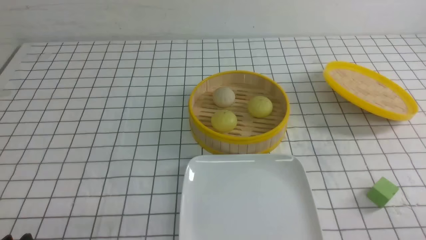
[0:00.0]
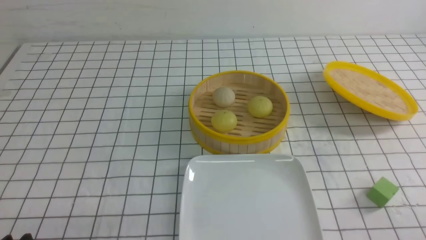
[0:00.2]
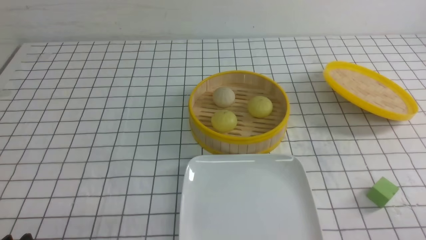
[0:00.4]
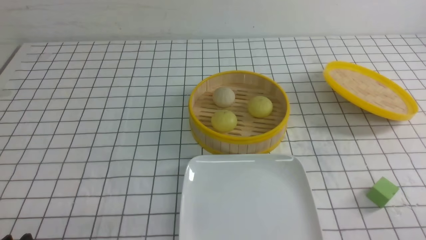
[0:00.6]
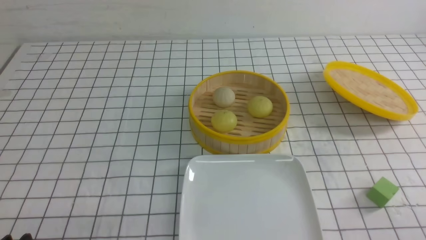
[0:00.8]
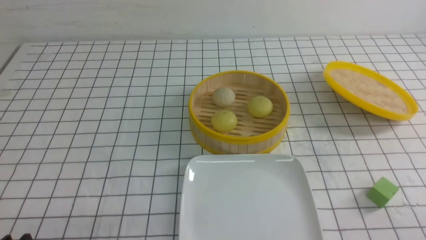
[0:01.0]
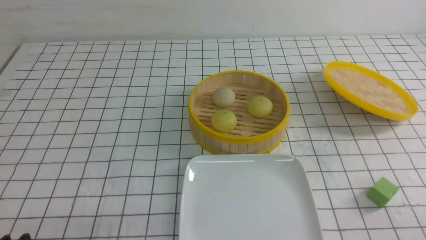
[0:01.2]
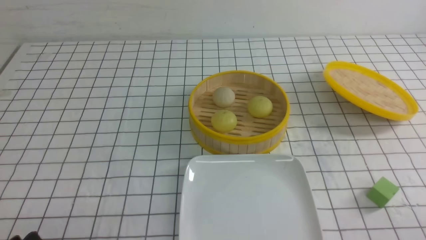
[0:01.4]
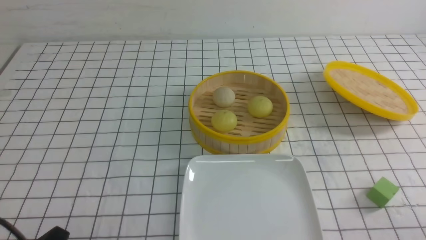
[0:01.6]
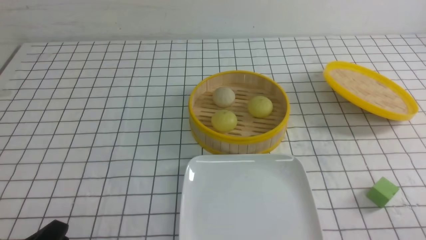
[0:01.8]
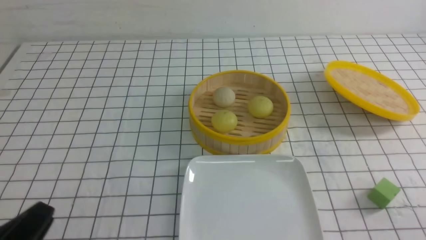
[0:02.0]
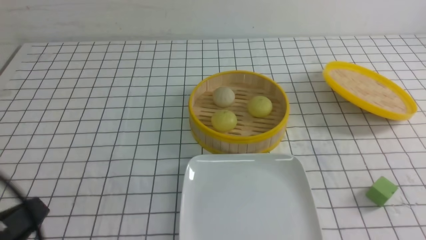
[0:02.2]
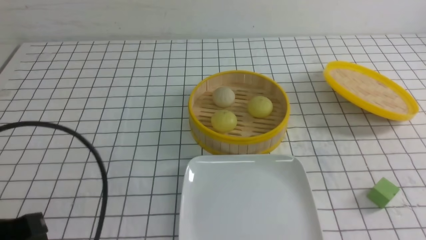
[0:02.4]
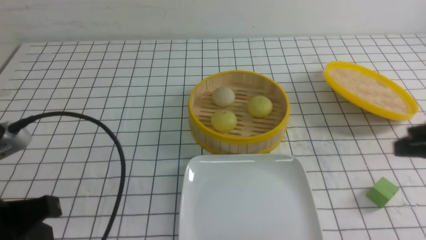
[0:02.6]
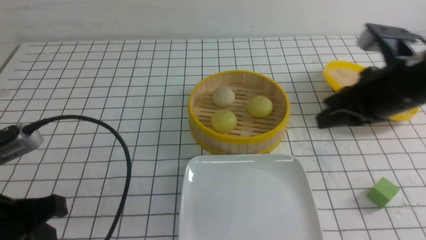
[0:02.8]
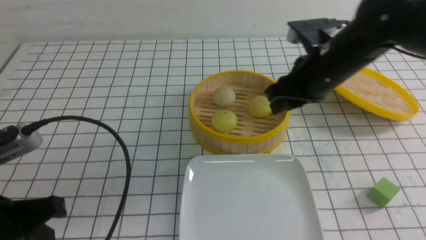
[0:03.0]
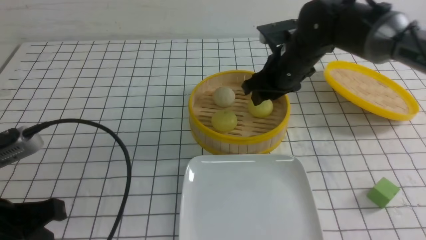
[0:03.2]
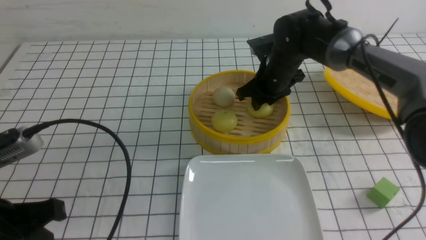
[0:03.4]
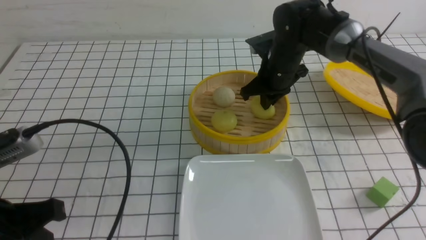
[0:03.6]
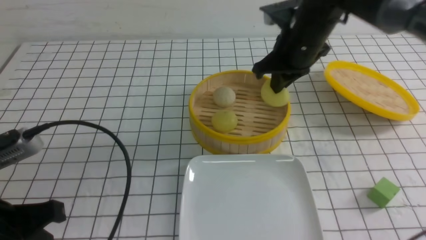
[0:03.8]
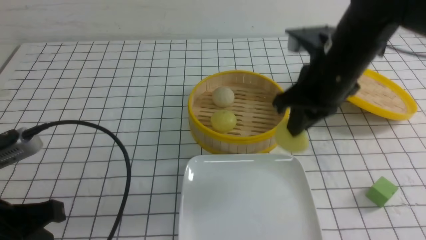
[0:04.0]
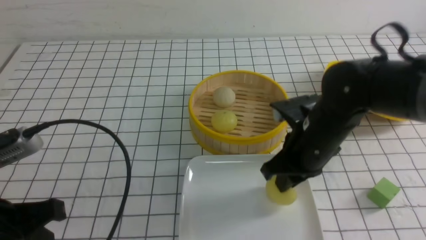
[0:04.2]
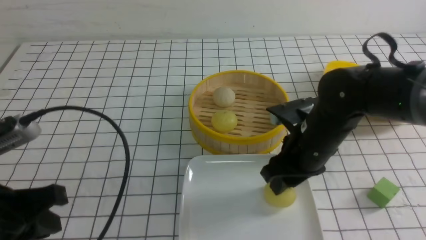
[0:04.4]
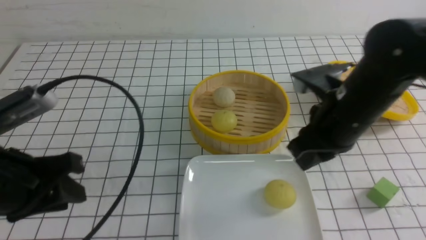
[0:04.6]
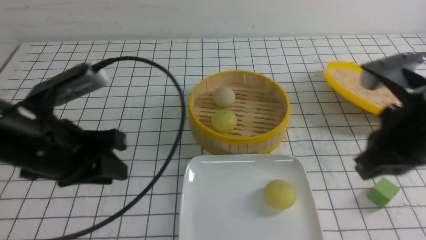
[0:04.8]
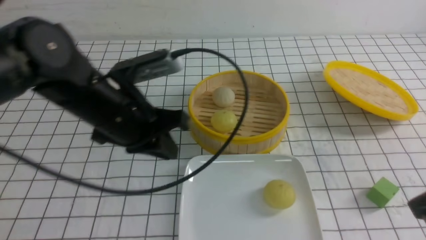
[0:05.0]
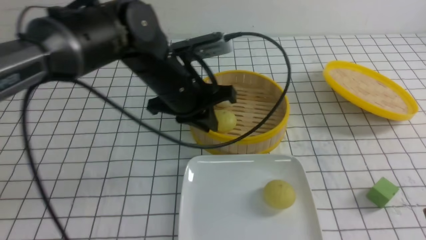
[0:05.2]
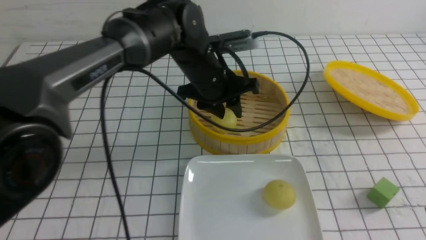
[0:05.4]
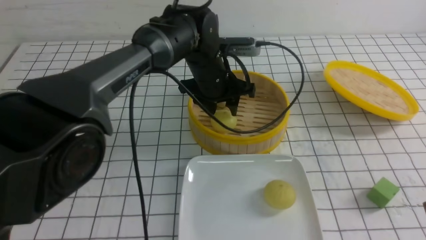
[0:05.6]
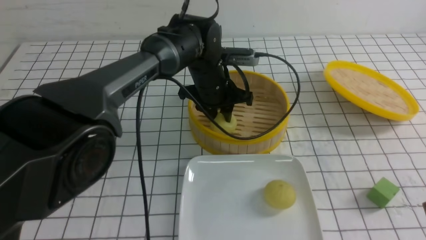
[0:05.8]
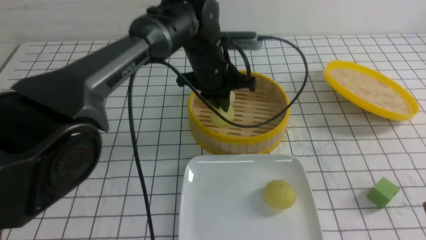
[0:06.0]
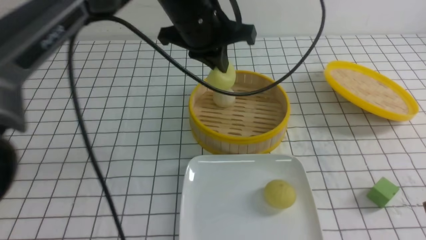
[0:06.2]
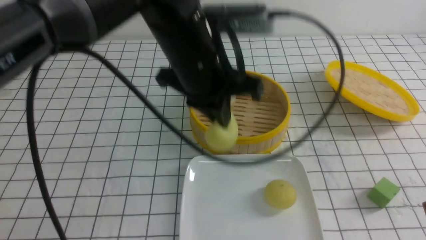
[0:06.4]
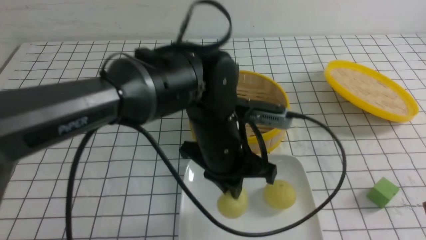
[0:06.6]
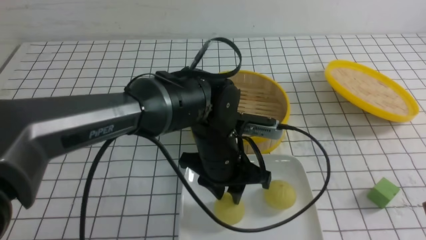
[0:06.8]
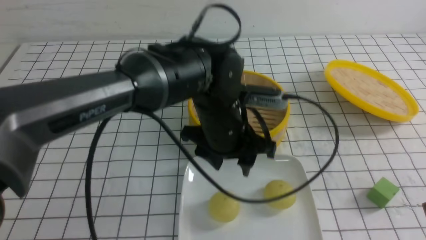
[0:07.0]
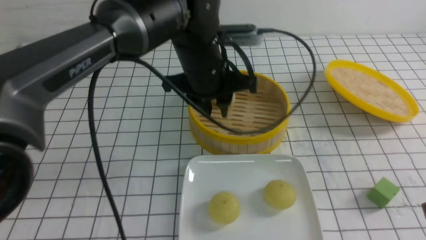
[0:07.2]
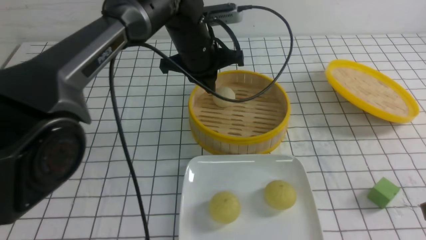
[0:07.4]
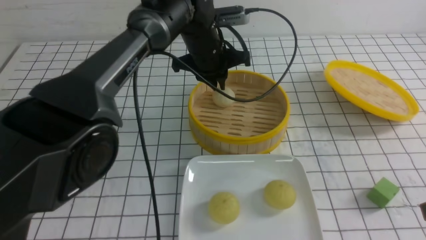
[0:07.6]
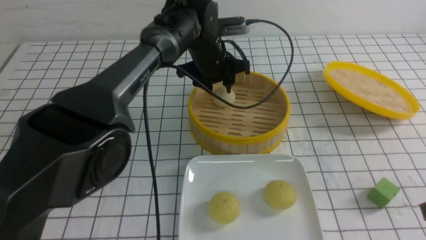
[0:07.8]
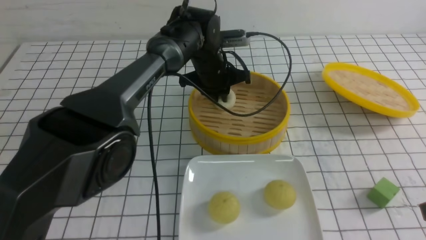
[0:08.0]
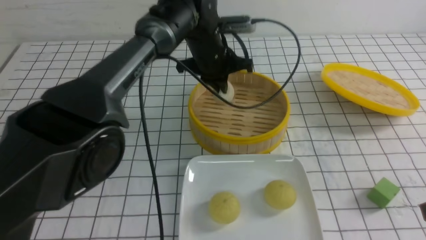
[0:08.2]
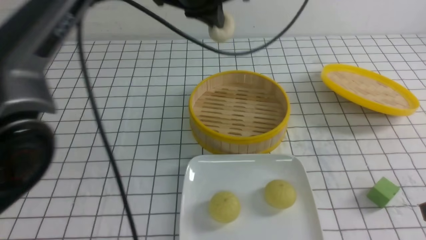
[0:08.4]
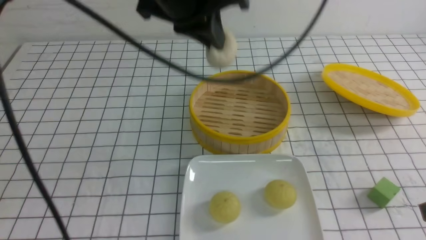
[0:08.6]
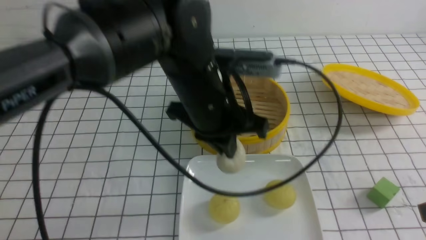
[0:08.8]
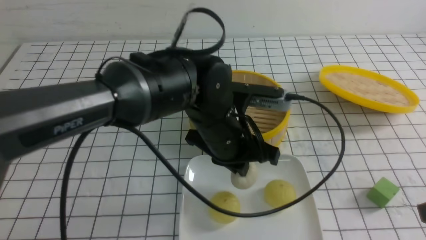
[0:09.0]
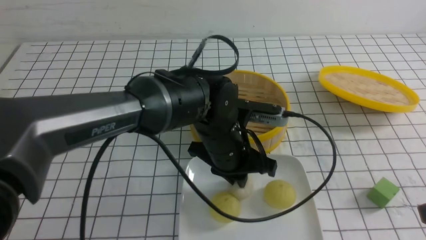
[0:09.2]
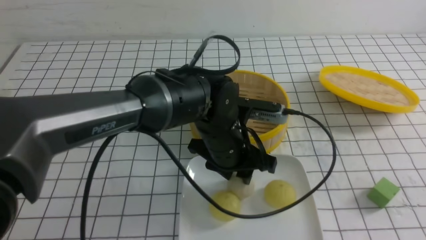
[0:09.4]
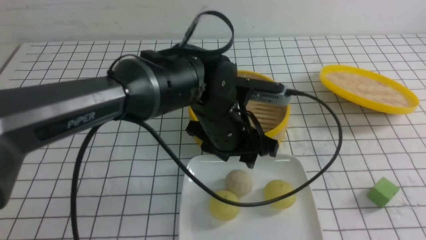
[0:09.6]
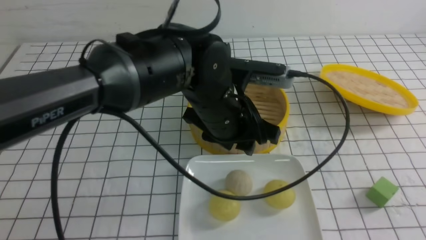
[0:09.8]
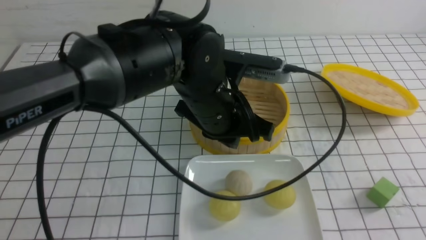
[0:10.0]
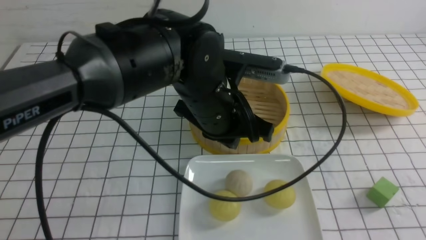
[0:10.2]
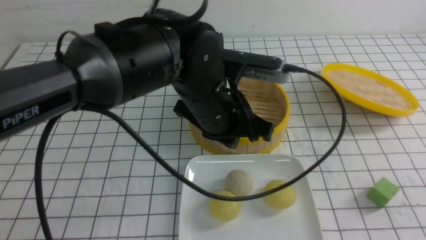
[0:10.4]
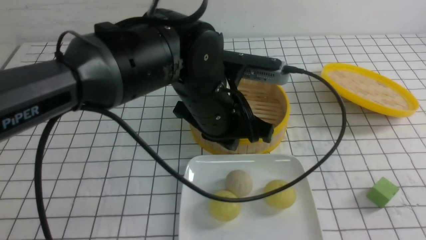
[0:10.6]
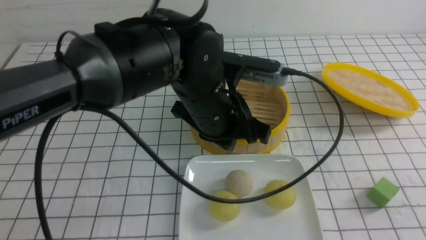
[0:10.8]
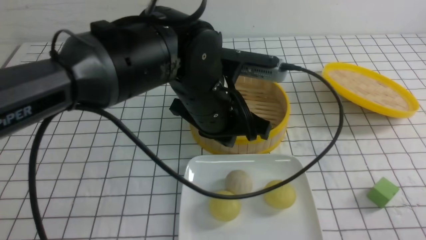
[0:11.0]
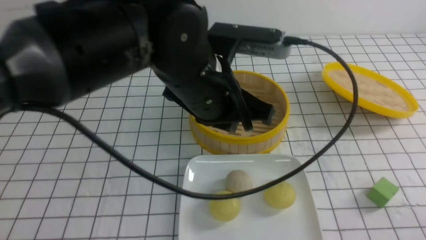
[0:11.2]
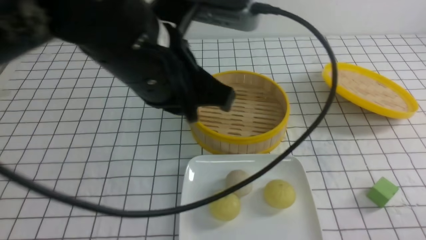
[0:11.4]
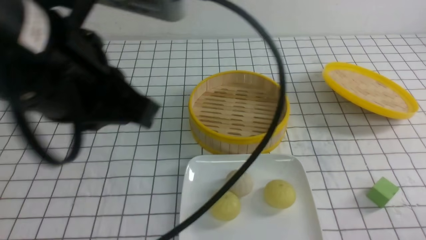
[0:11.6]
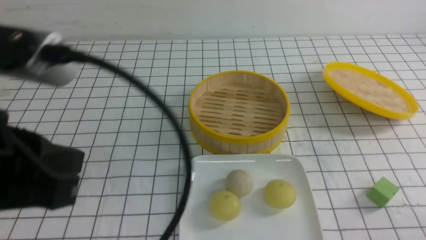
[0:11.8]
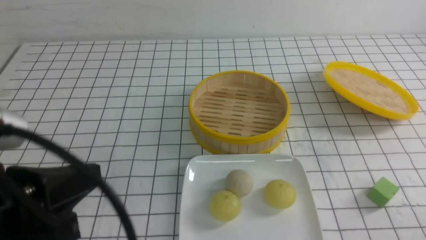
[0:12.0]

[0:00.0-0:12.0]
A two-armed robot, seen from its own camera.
Step, 0:00.0 to 0:03.4: use the right arm to grab the steamed stuffed bun that is closest to it.
Step, 0:03.6 to 0:04.4: use the right arm to put the steamed stuffed bun into the plate.
Step, 0:04.6 to 0:05.8: use the left arm to grab the steamed stuffed bun that is closest to it.
Step, 0:06.0 to 0:06.8: use the left arm to put the steamed stuffed bun into the plate.
Step, 0:07.0 to 0:08.0: use the left arm to grab the steamed stuffed bun that is closest to it.
Step, 0:08.2 to 0:09.2: use the left arm to put the steamed stuffed bun into the plate.
0:01.6 to 0:03.0: The left gripper goes about 15 cm upward and forward, and closes its fingers. Meanwhile the right gripper shifts roughly 35 cm forward and to the left, and closes and opens again.
0:03.0 to 0:04.4: The left gripper opens. The right gripper shifts some 10 cm backward and downward, and closes and opens again.
0:04.4 to 0:06.0: The left gripper travels forward and to the right by approximately 35 cm, and opens, then closes again, while the right gripper heads backward and to the right, covering roughly 20 cm, and closes up.
0:06.0 to 0:07.6: The left gripper moves about 15 cm backward and comes back, and opens, then closes once more.
0:07.6 to 0:09.0: The left gripper is displaced backward by some 15 cm, and closes.
0:09.0 to 0:10.4: The left gripper opens and closes again. Meanwhile the right gripper shifts some 10 cm backward, and closes up.
0:10.4 to 0:12.0: The right gripper heads downward, covering some 10 cm. Meanwhile the left gripper heads to the left and backward, covering about 25 cm.

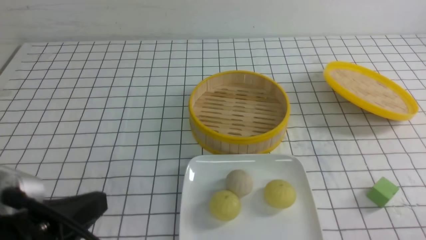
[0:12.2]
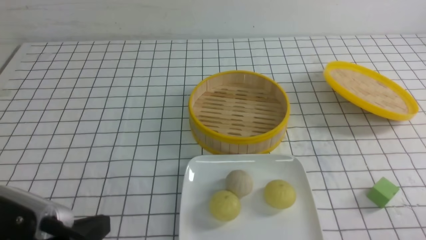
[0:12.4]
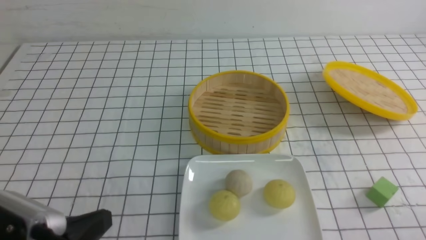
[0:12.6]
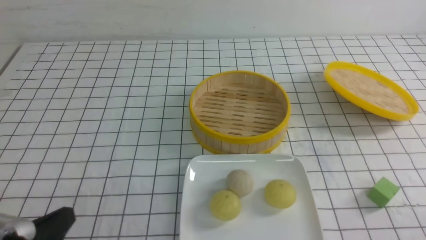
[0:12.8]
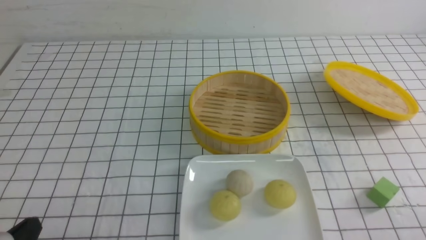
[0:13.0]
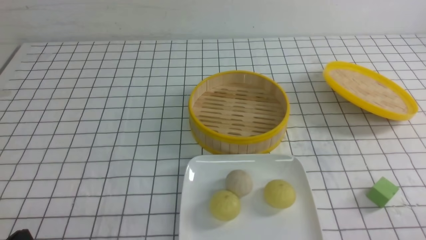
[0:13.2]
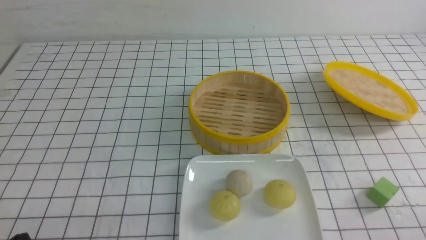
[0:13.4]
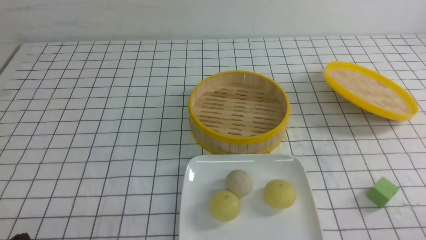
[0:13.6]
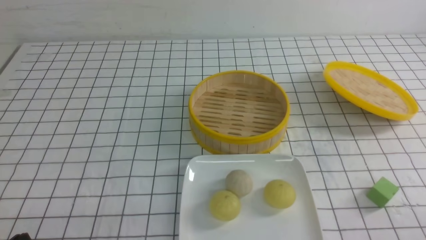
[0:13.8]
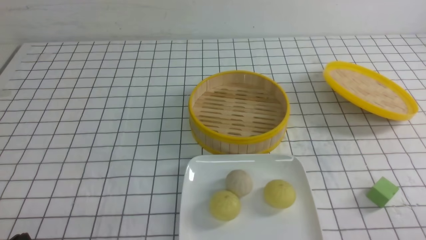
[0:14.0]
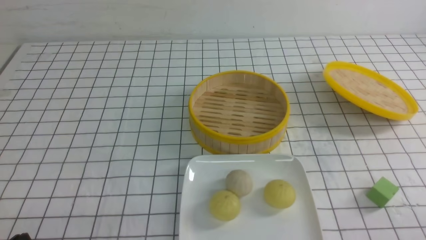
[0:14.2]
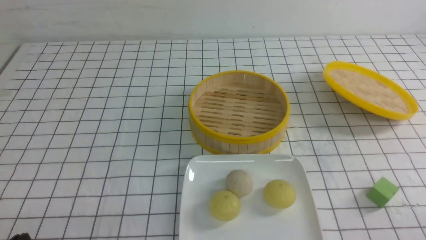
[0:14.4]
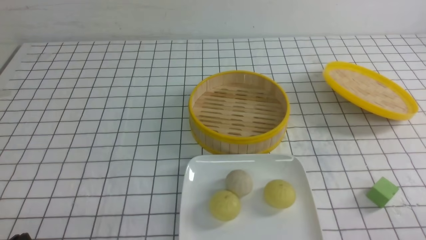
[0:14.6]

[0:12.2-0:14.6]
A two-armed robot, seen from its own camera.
0:12.2 to 0:13.4: The left gripper moves downward and to the left, approximately 15 cm.
0:13.4 to 0:14.6: Both grippers stay about where they are.
